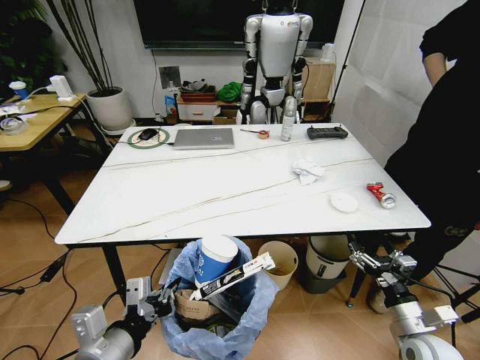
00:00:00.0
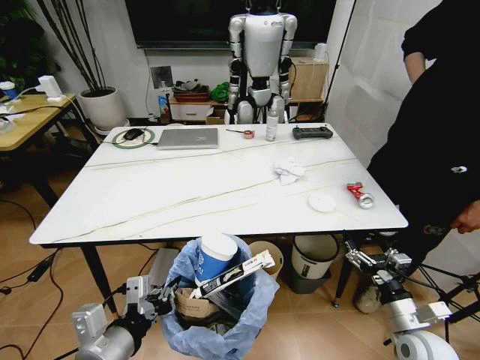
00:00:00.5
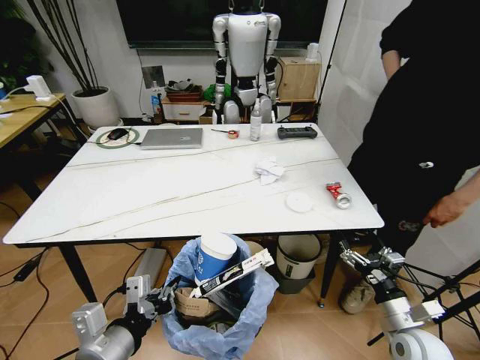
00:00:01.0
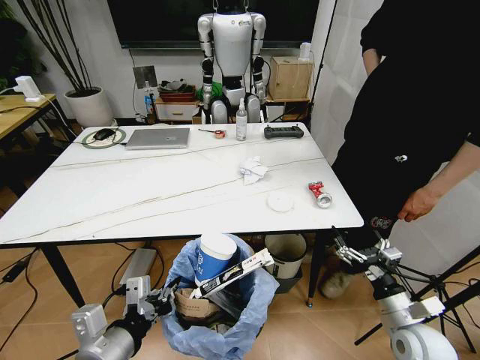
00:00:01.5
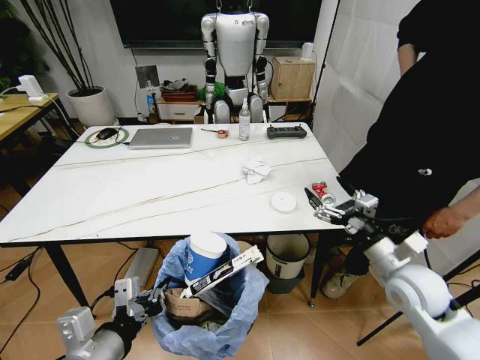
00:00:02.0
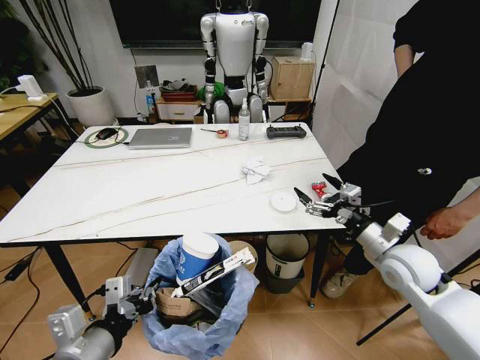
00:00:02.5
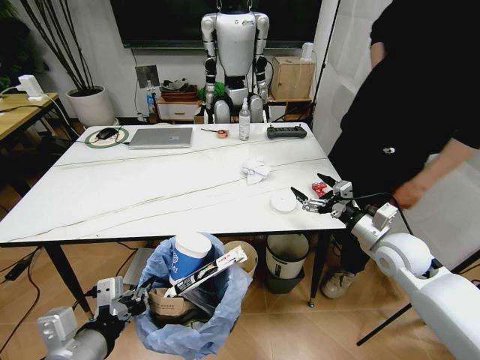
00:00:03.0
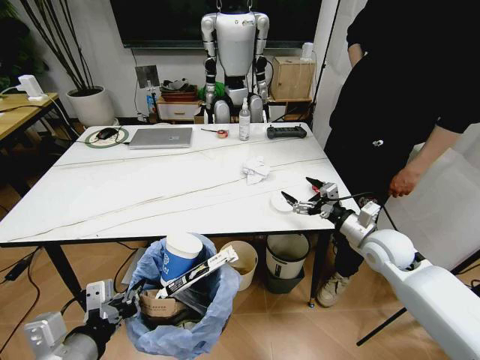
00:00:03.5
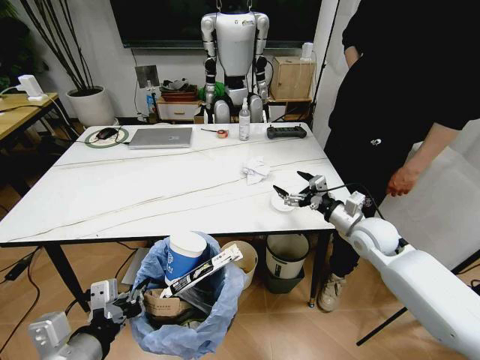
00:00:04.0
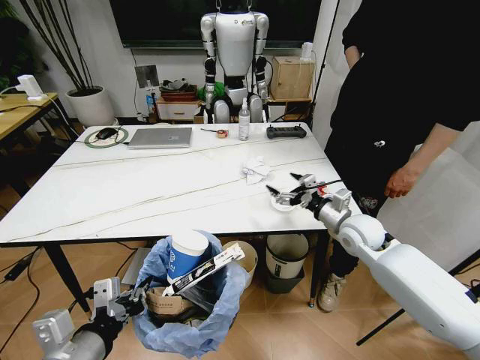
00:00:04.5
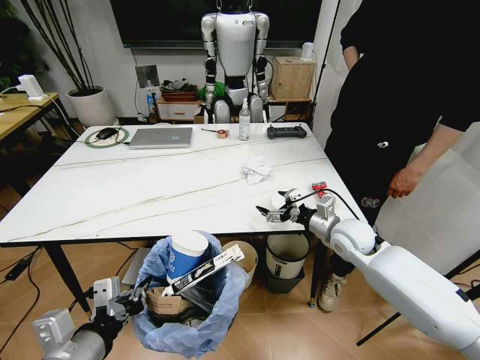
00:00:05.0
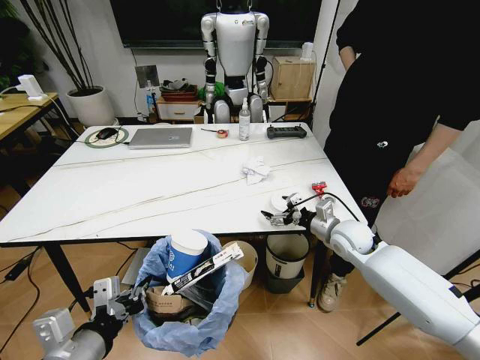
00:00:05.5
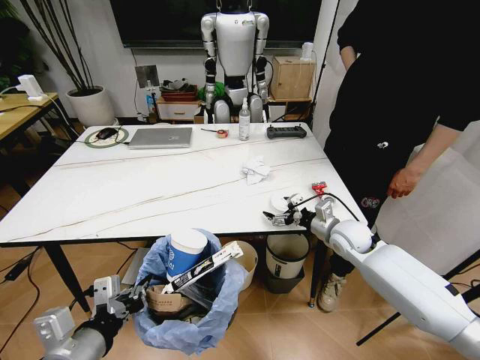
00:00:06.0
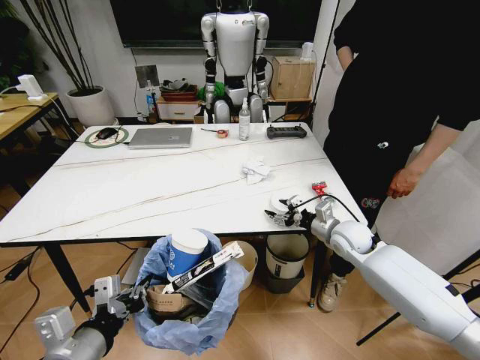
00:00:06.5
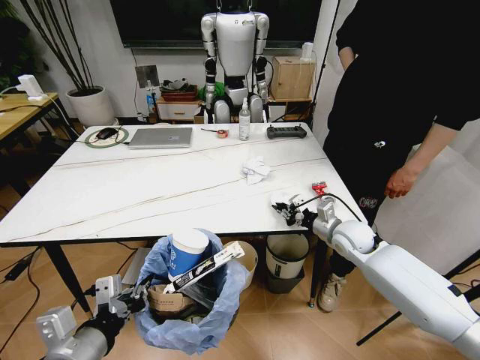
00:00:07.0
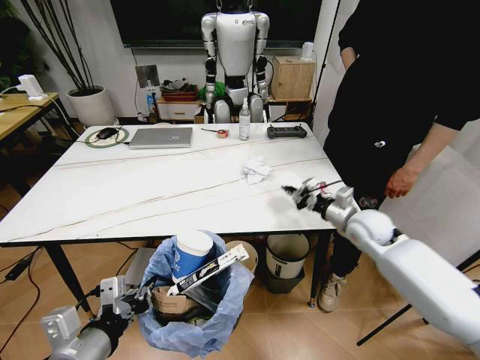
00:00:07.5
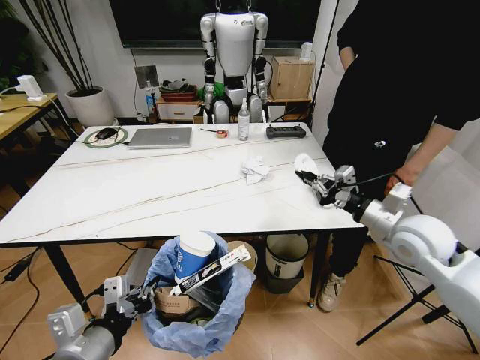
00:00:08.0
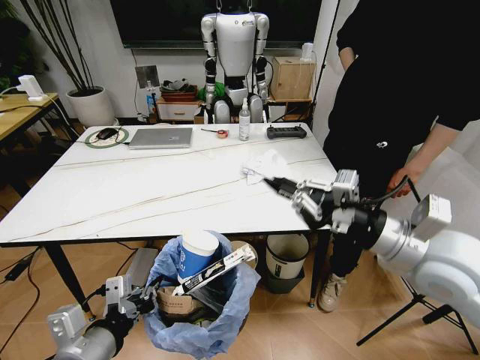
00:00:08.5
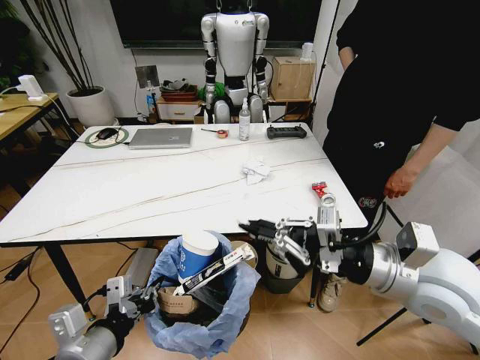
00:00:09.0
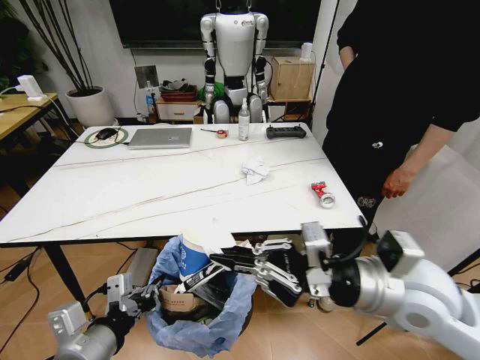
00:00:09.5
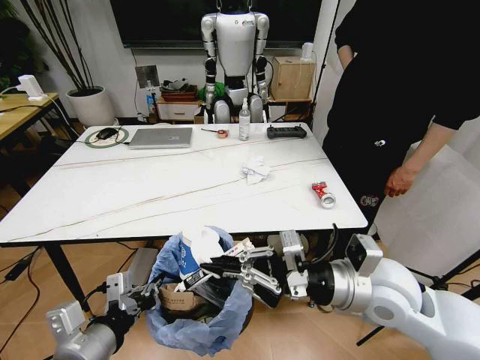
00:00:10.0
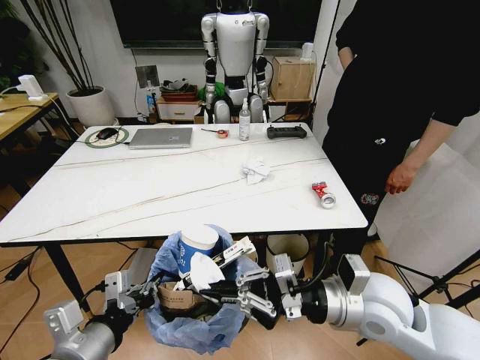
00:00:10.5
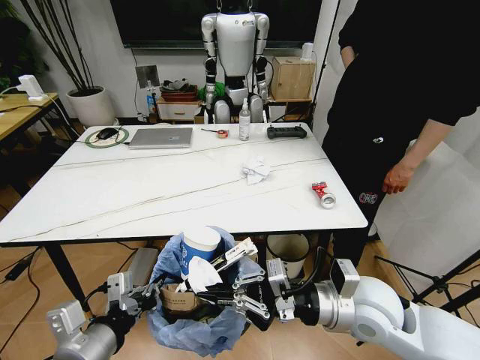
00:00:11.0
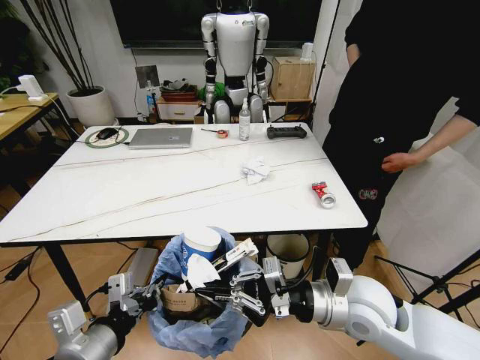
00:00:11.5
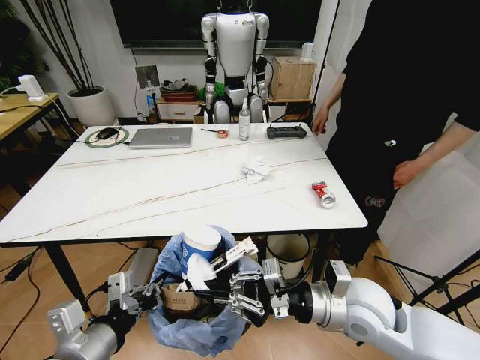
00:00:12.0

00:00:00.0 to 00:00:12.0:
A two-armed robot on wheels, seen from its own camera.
Task of the whole recording: Pick up the trash bin and place the trash from the table into it.
00:00:00.0 to 00:00:02.0: The right gripper moves upward and forward, about 15 cm.
00:00:02.0 to 00:00:04.0: The right gripper heads forward, covering some 15 cm.
00:00:04.0 to 00:00:06.0: The right gripper moves some 5 cm.
00:00:06.0 to 00:00:08.0: The right gripper travels upward, backward and to the right by approximately 15 cm, and closes.
00:00:08.0 to 00:00:10.0: The right gripper heads to the left and backward, covering roughly 15 cm.
00:00:10.0 to 00:00:12.0: The right gripper shifts some 5 cm downward.

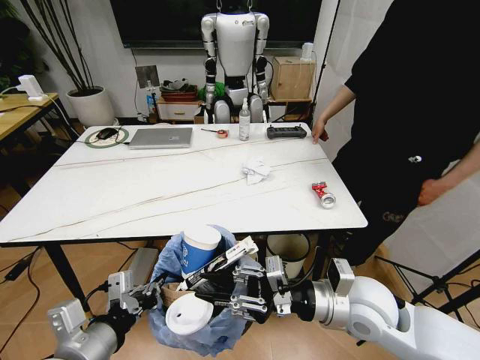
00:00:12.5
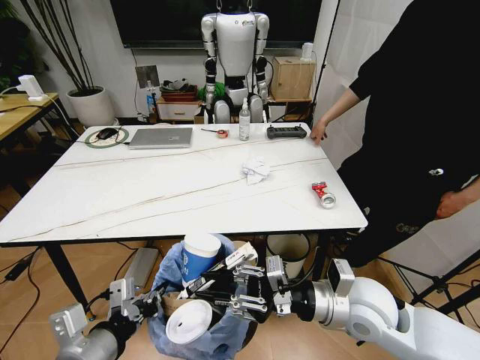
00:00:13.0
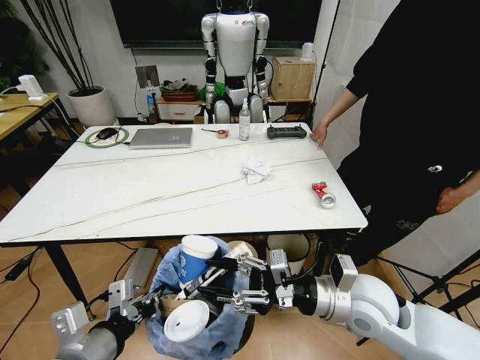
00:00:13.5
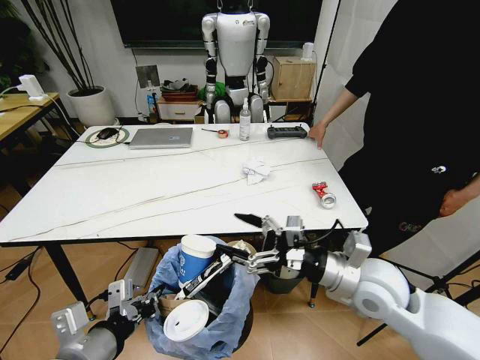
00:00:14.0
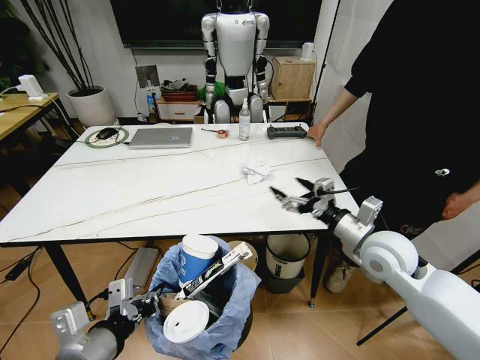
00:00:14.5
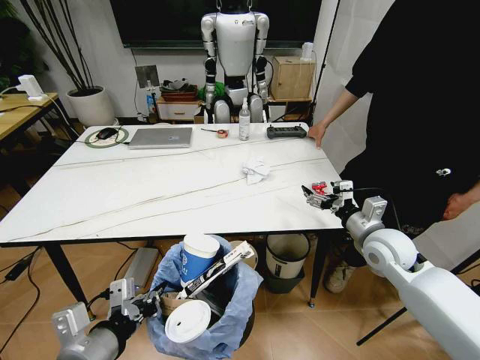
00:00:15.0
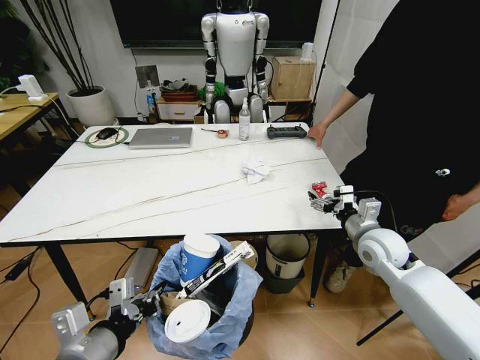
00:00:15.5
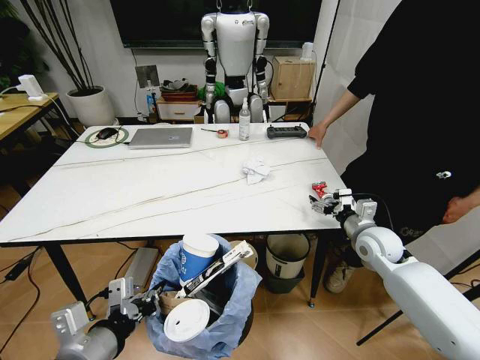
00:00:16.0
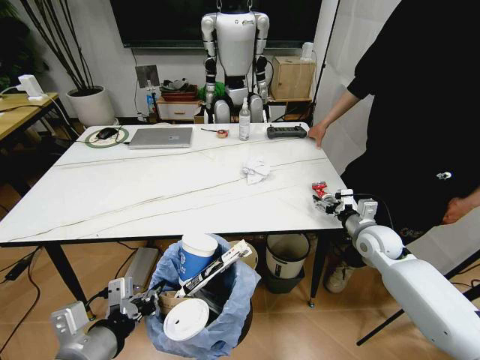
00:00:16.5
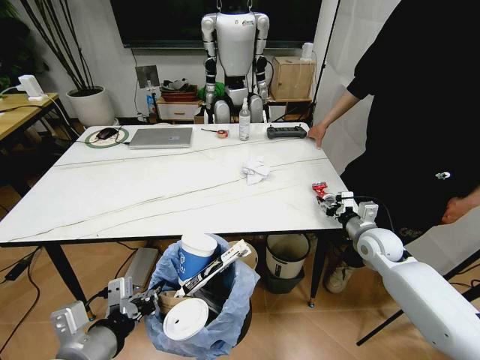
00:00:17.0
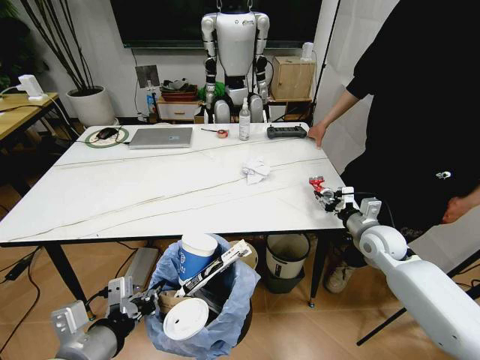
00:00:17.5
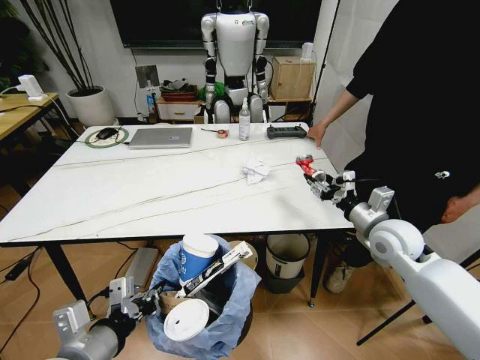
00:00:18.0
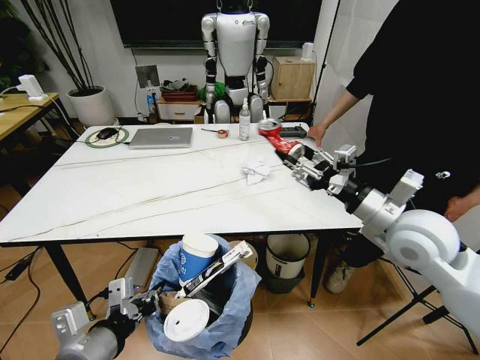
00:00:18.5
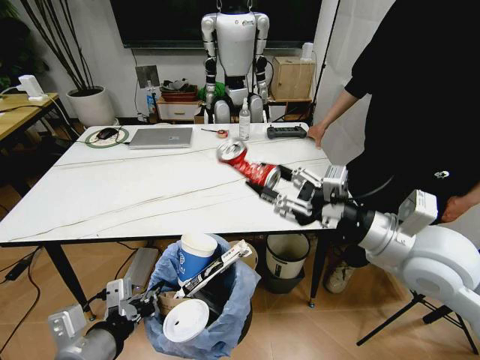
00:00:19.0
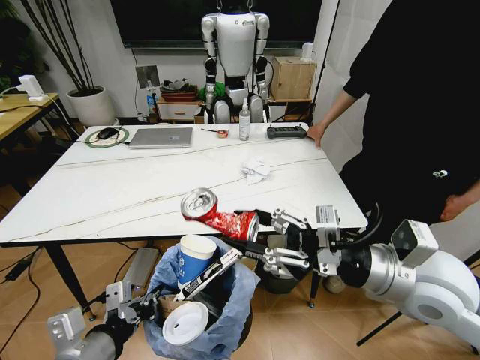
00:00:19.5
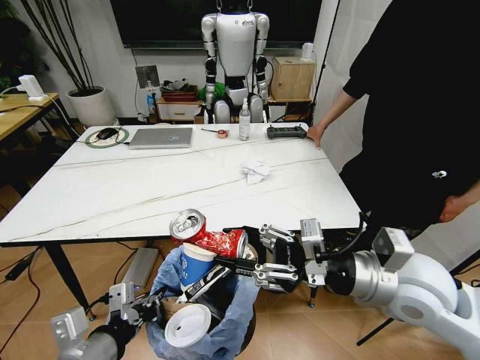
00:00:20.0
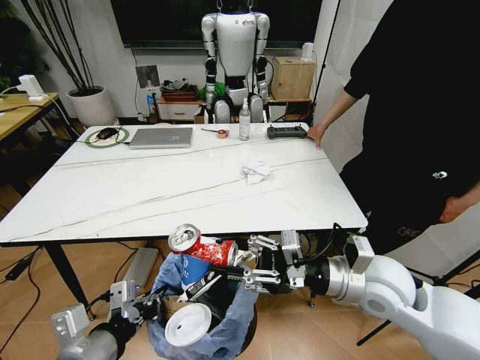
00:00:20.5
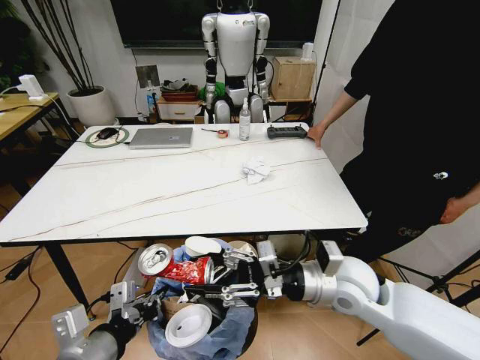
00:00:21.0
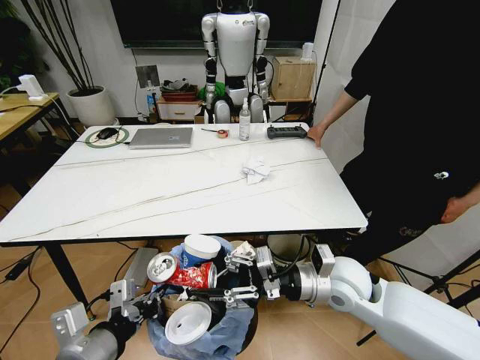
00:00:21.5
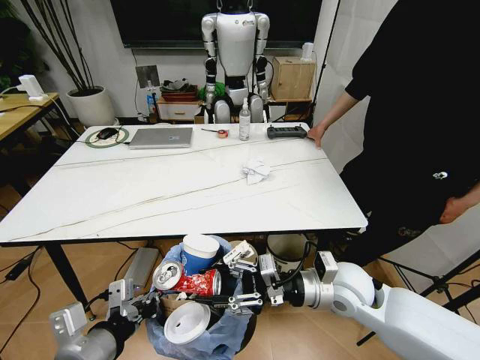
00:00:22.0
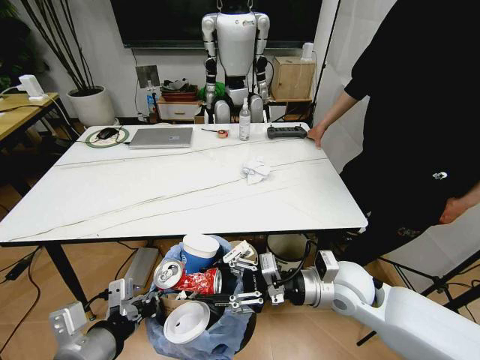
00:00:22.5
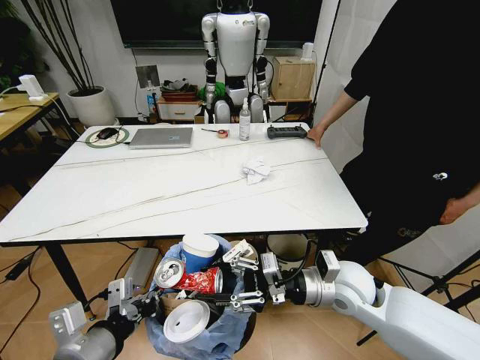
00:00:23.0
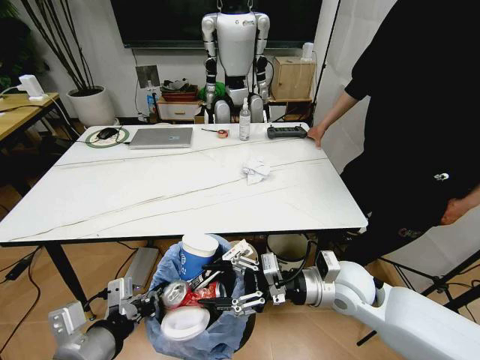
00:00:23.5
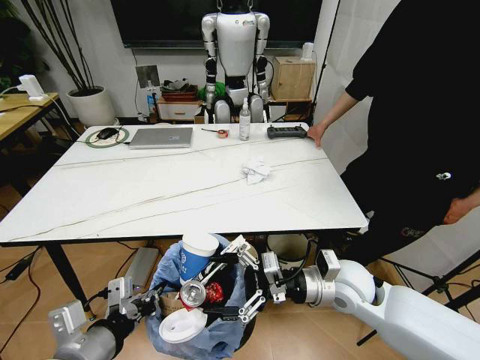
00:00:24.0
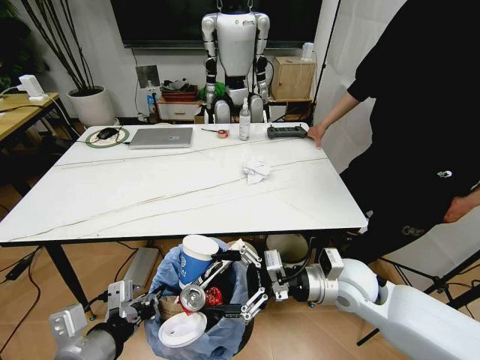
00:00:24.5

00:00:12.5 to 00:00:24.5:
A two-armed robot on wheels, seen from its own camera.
Task of the whole recording: Pick up the trash bin and place the trash from the table into it.
00:00:12.5 to 00:00:14.5: The right gripper moves forward and to the right, approximately 10 cm, and opens its fingers.
00:00:14.5 to 00:00:16.5: The right gripper travels downward, forward and to the right by approximately 15 cm.
00:00:16.5 to 00:00:18.5: The right gripper travels upward and backward by some 20 cm, and closes its fingers.
00:00:18.5 to 00:00:20.5: The right gripper heads downward and to the left, covering approximately 10 cm.
00:00:20.5 to 00:00:22.5: The right gripper moves downward, approximately 5 cm.
00:00:22.5 to 00:00:24.5: The right gripper opens its fingers.

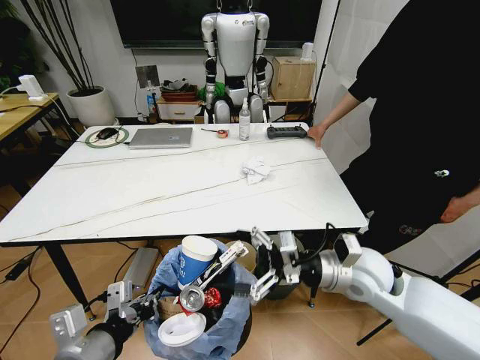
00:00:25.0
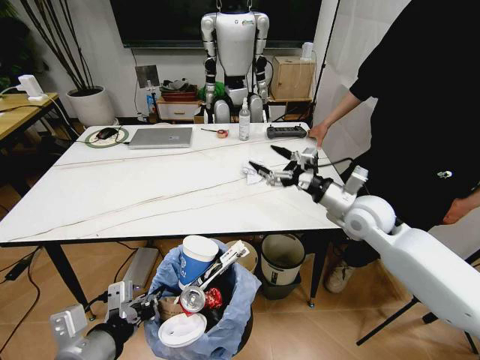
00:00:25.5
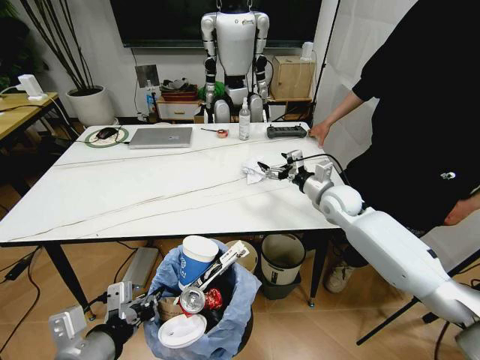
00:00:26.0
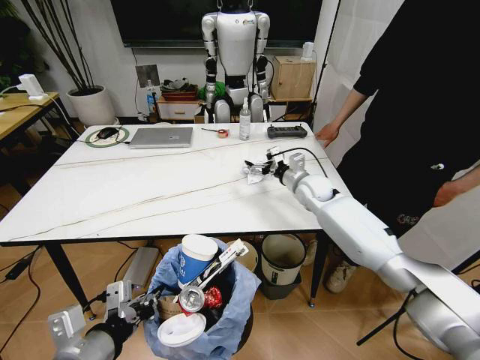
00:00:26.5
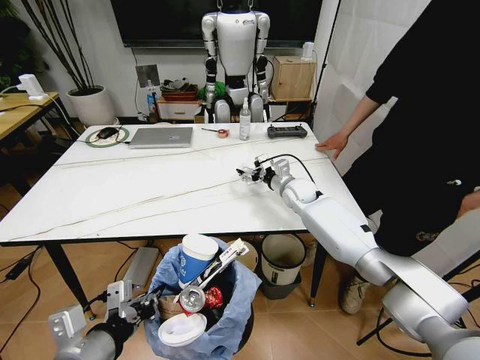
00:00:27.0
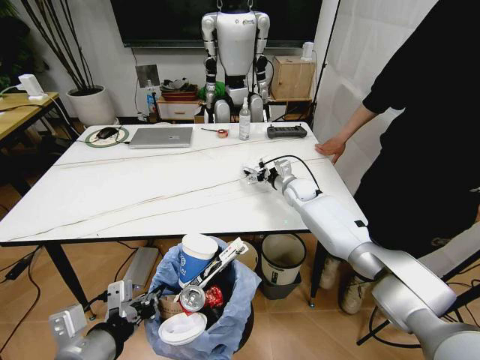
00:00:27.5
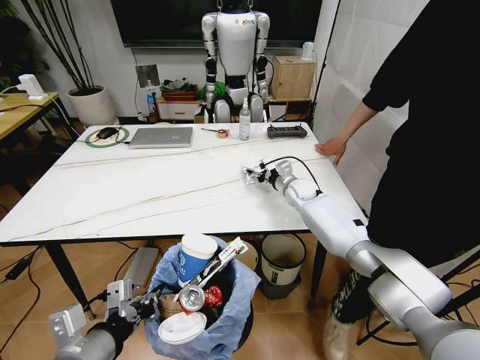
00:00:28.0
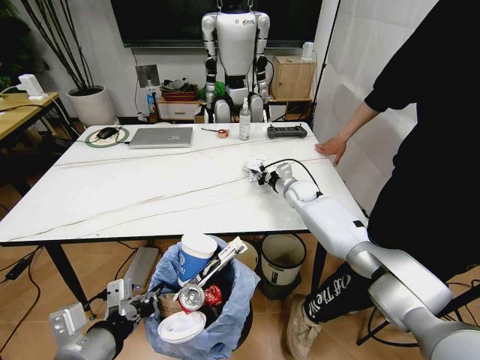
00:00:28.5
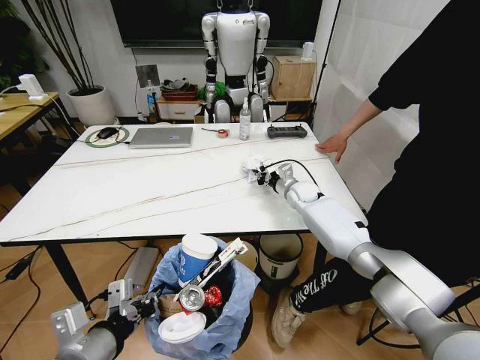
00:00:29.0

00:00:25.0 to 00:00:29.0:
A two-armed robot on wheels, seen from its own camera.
Task of the whole recording: Pick up the trash bin and place the trash from the table into it.
00:00:25.0 to 00:00:27.0: The right gripper travels forward by approximately 30 cm.
00:00:27.0 to 00:00:29.0: The right gripper closes up.
